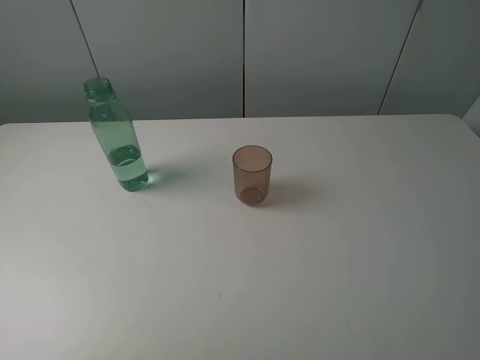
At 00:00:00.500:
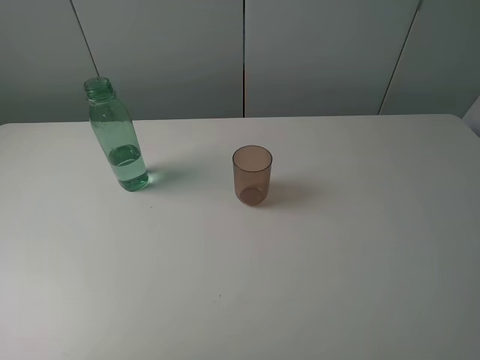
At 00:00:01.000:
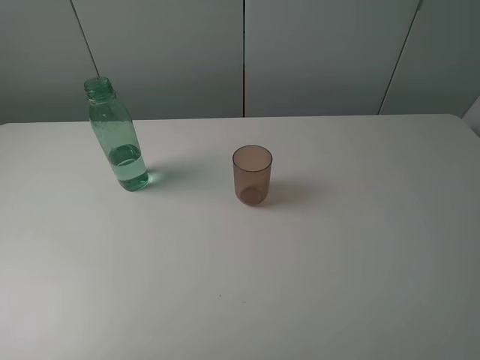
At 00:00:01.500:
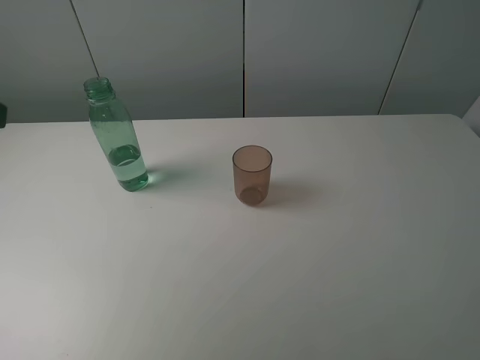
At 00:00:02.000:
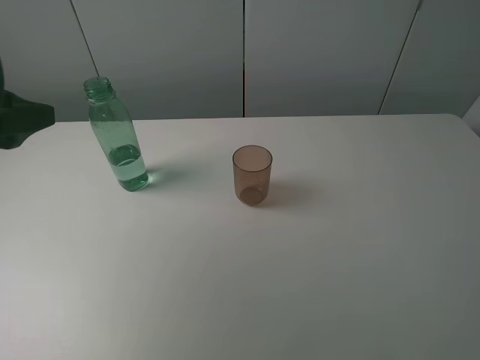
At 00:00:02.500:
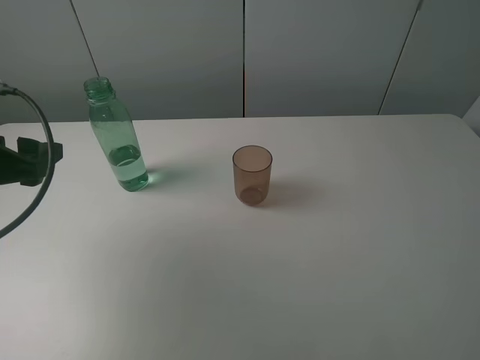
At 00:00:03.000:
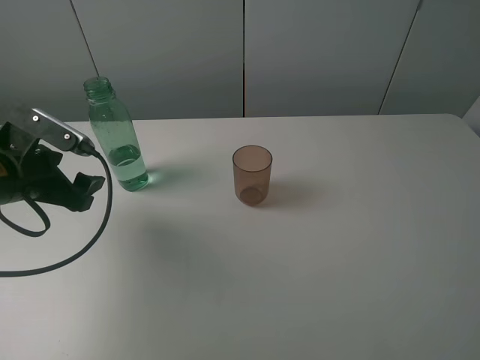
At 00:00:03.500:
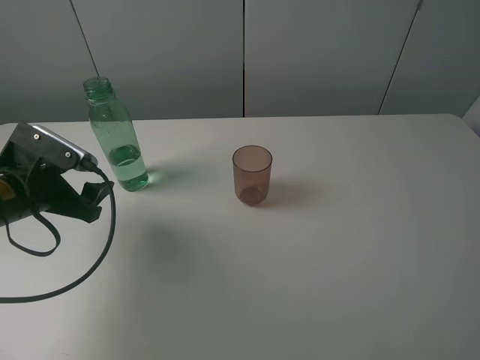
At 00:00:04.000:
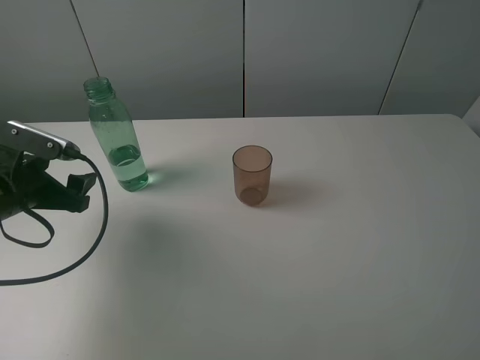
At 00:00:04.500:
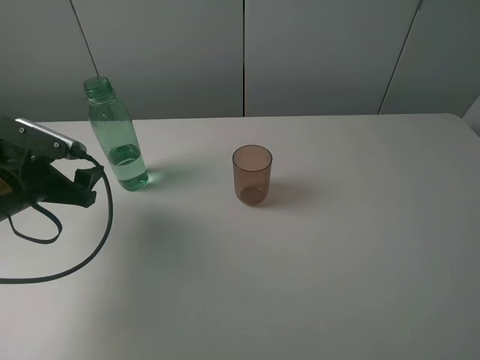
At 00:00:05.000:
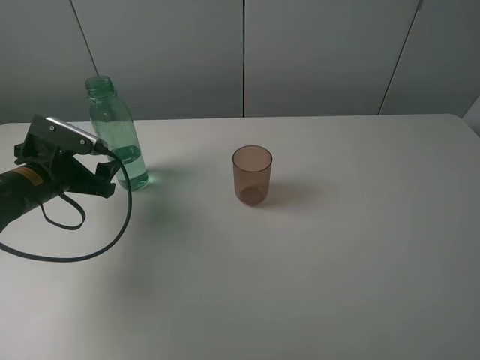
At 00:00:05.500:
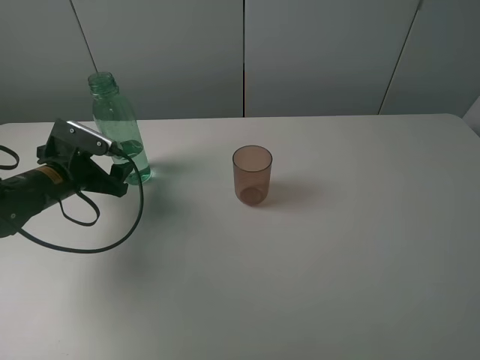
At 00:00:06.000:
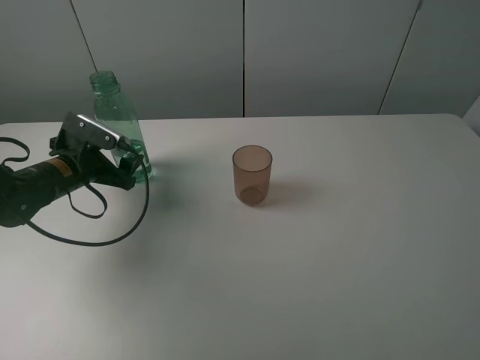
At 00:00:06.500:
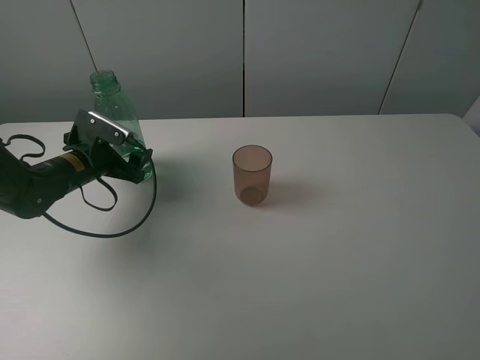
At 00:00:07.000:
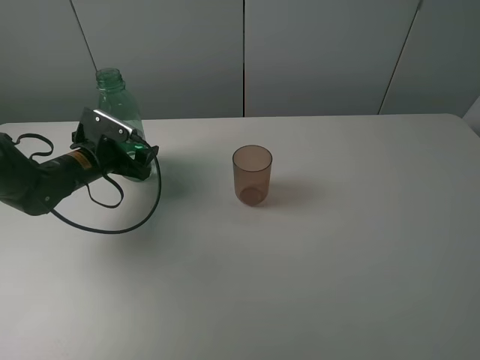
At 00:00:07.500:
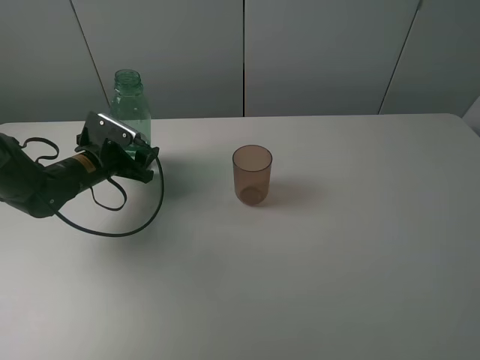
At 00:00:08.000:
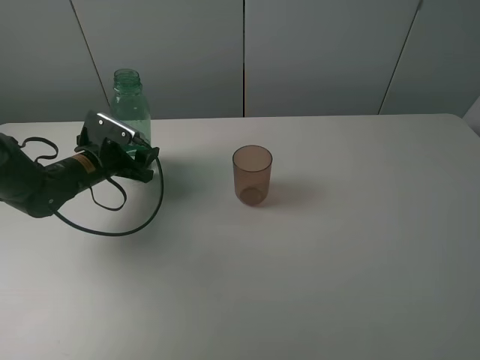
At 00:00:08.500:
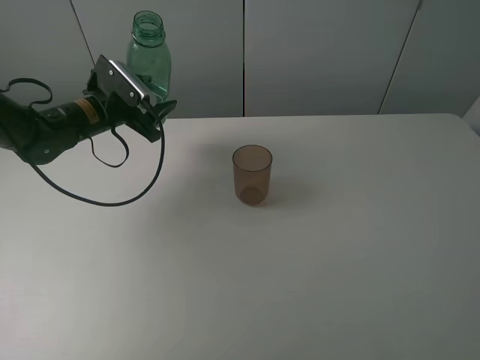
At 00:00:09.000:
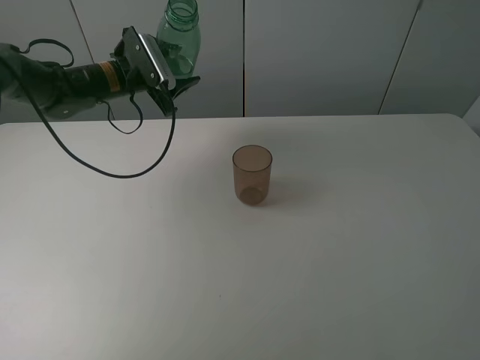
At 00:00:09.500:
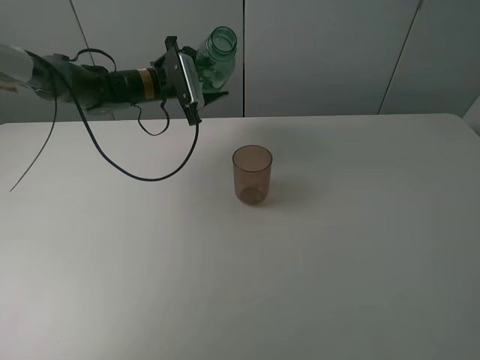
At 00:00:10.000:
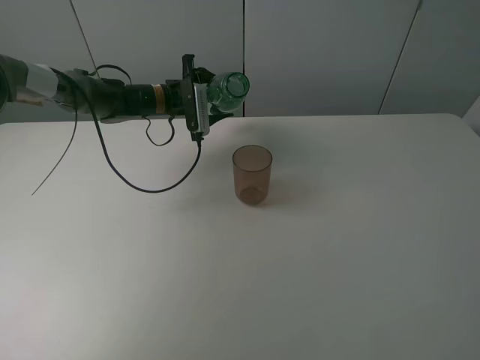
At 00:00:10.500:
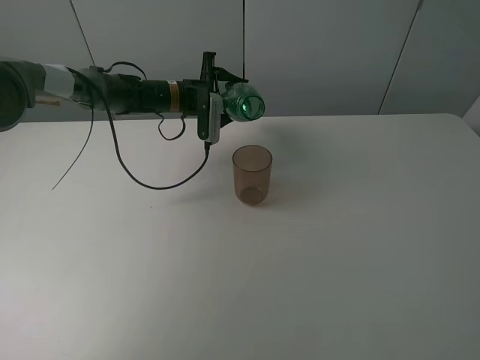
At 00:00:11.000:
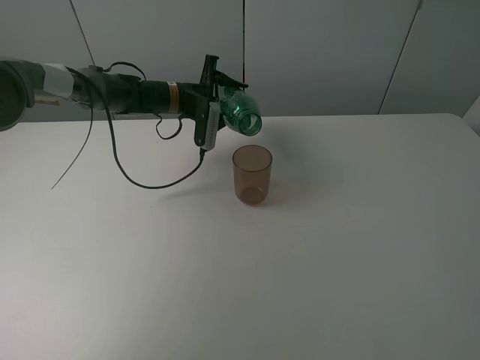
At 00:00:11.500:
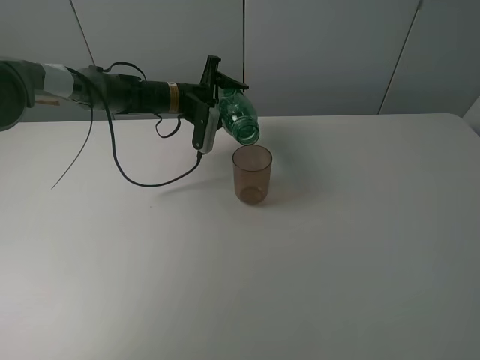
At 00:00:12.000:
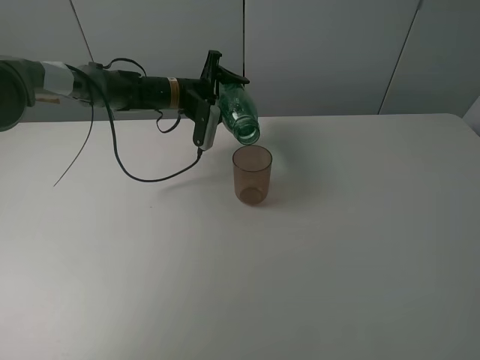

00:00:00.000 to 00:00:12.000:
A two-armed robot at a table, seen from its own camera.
Task of the whole recording: pick up the bottle filled with water and pour it into the pink cup.
Step, 00:00:00.000 to 00:00:07.500: Grasp the green bottle with the left gripper.
00:00:00.000 to 00:00:02.000: The left gripper heads forward, covering some 20 cm.
00:00:02.000 to 00:00:04.000: The left gripper goes roughly 15 cm downward.
00:00:04.000 to 00:00:06.000: The left gripper goes roughly 10 cm forward and downward.
00:00:06.000 to 00:00:08.000: The left gripper closes up.
00:00:08.000 to 00:00:10.000: The left gripper moves forward and to the right, about 20 cm.

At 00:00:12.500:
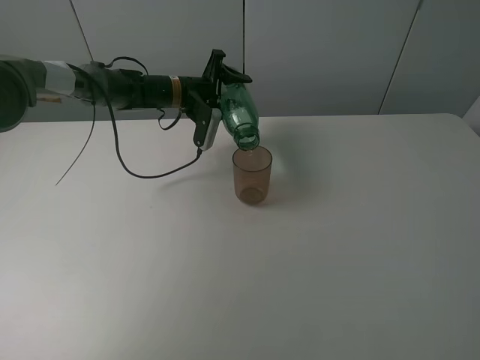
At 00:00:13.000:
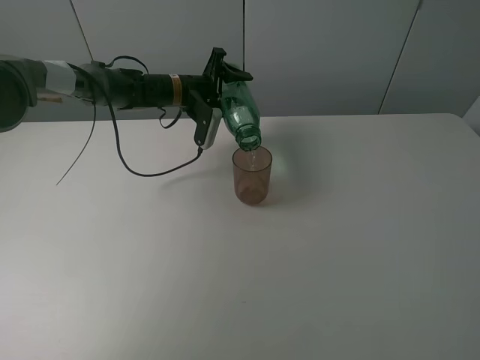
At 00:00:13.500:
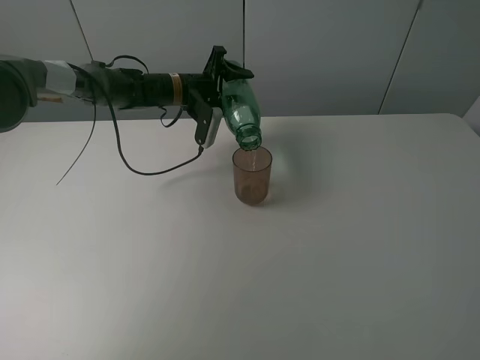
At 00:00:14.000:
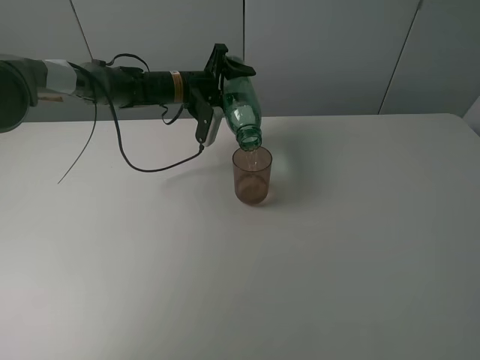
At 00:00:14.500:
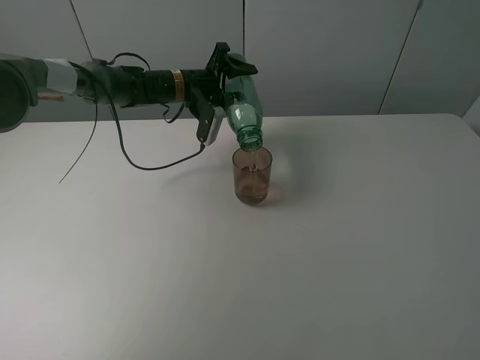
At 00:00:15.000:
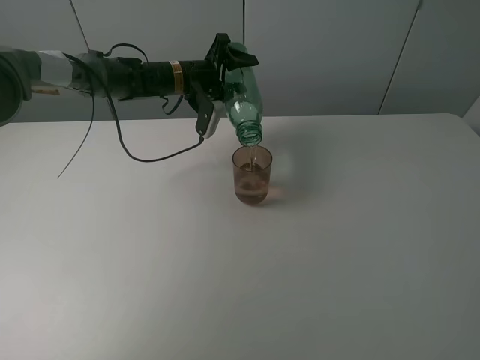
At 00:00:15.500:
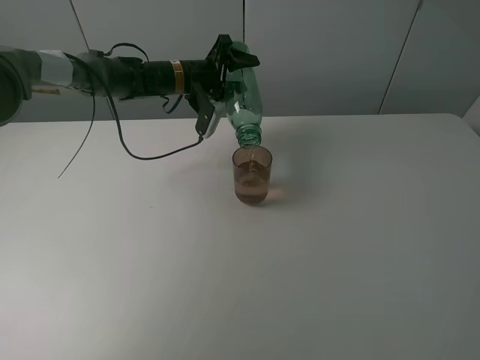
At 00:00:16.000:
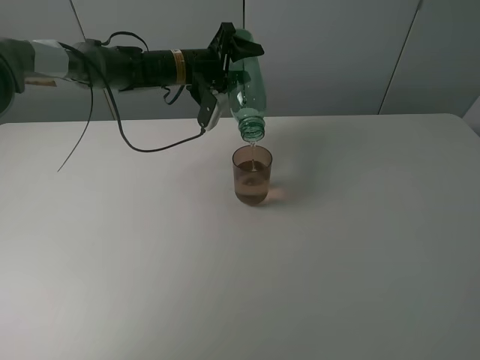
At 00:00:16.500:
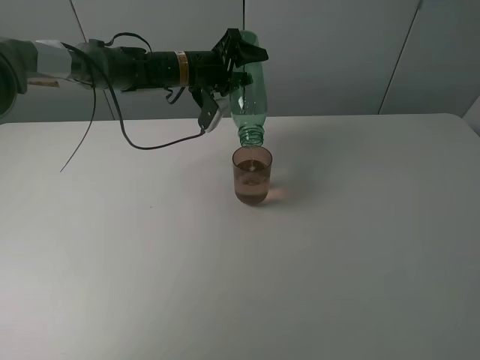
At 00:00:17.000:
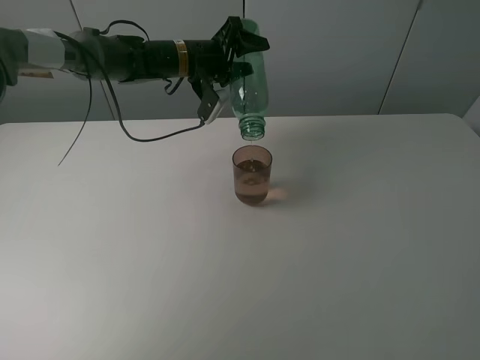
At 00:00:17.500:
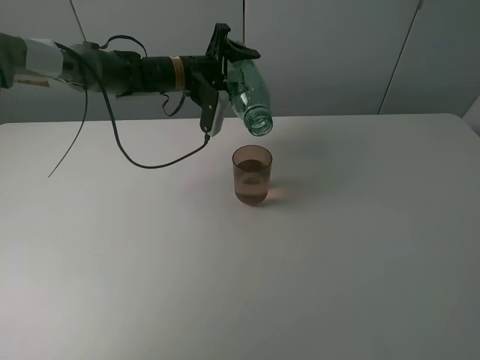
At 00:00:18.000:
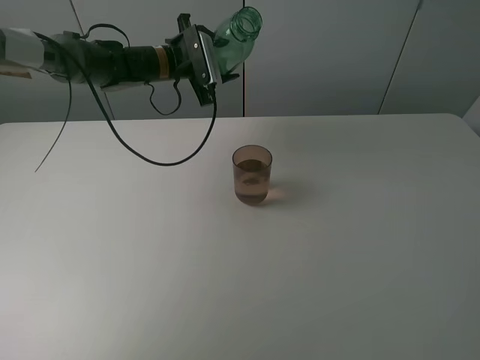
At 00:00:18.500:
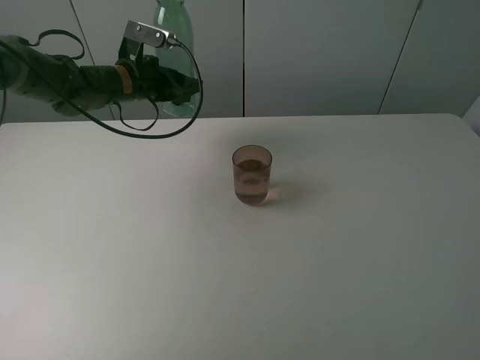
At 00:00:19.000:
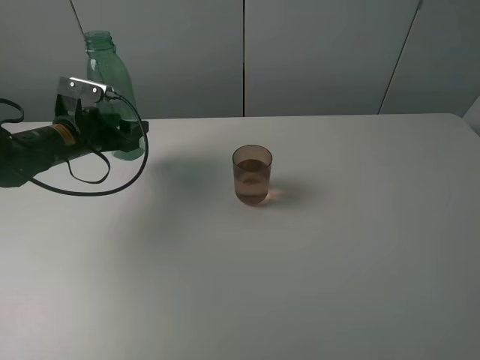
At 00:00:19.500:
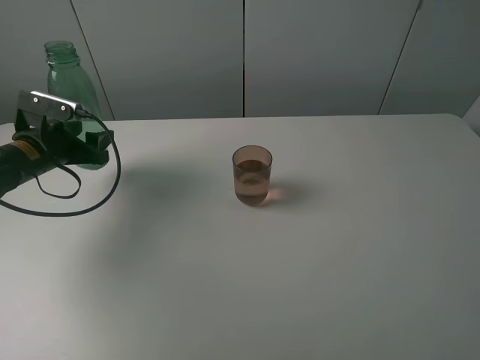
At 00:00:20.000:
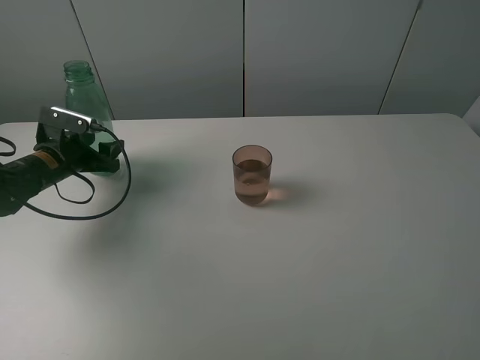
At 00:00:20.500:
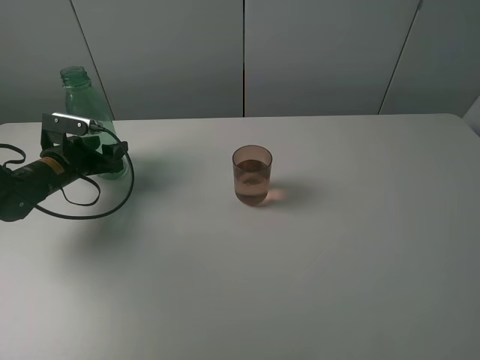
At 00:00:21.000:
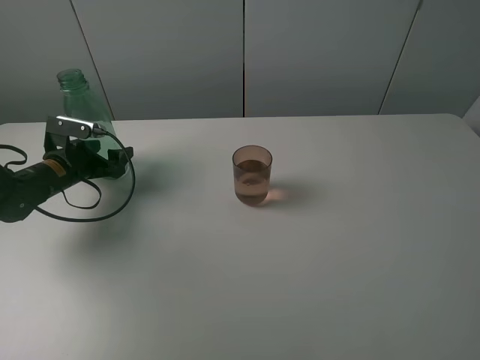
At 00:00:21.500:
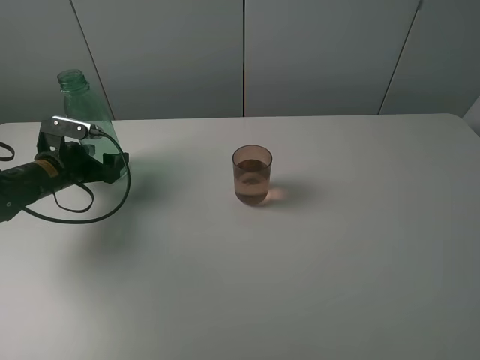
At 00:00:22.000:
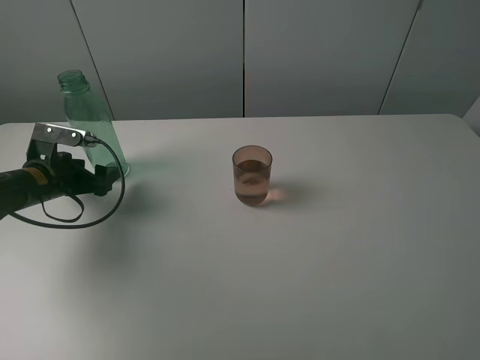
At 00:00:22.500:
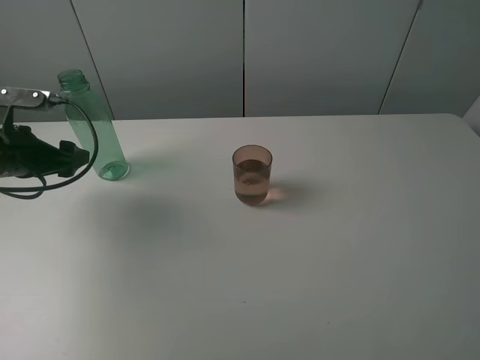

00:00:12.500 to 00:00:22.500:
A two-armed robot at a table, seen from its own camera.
Task of the whole recording: pick up the bottle filled with water and pour it into the pink cup.
Step, 00:00:12.500 to 00:00:17.500: Pour water from green bottle to pink cup with the left gripper.
Step, 00:00:18.000 to 00:00:21.500: Place the green bottle with the left gripper.
00:00:12.500 to 00:00:14.500: The grippers move only a little.
00:00:14.500 to 00:00:16.500: The grippers make only small movements.
00:00:16.500 to 00:00:18.500: The left gripper heads to the left, covering some 10 cm.
00:00:18.500 to 00:00:20.500: The left gripper is displaced to the left, downward and backward by some 20 cm.
00:00:20.500 to 00:00:22.500: The left gripper goes about 15 cm upward and backward, and opens its fingers.

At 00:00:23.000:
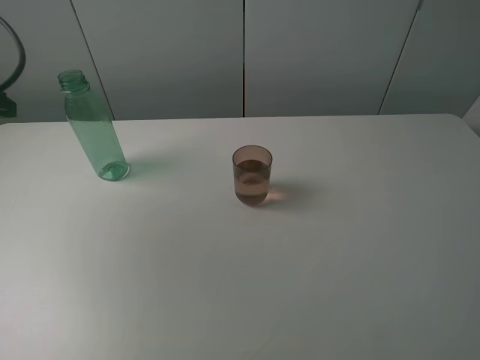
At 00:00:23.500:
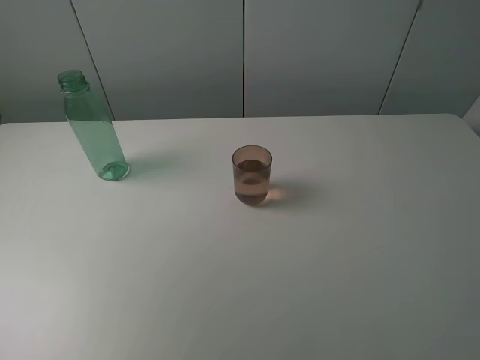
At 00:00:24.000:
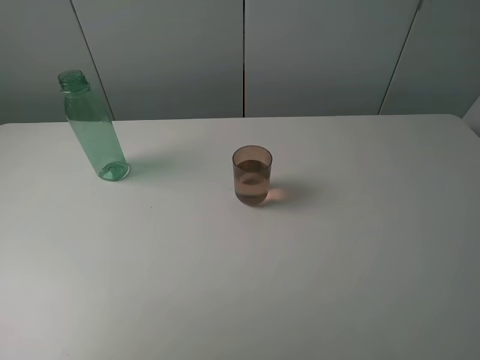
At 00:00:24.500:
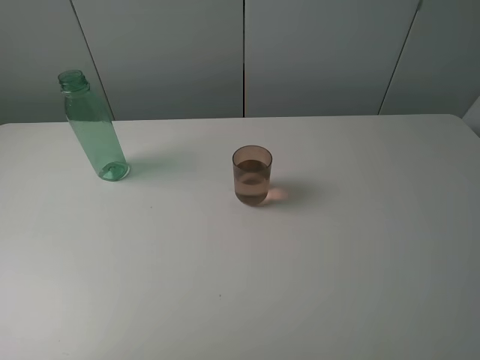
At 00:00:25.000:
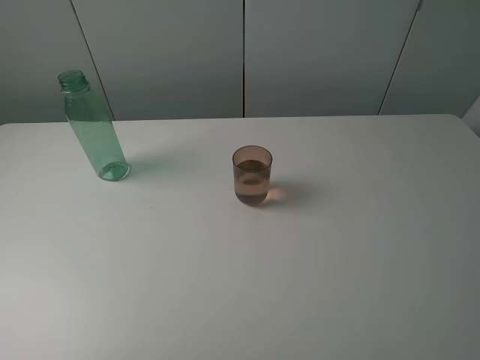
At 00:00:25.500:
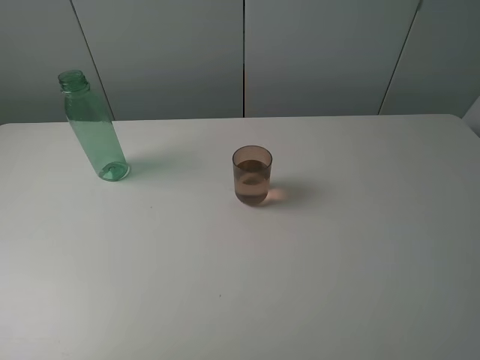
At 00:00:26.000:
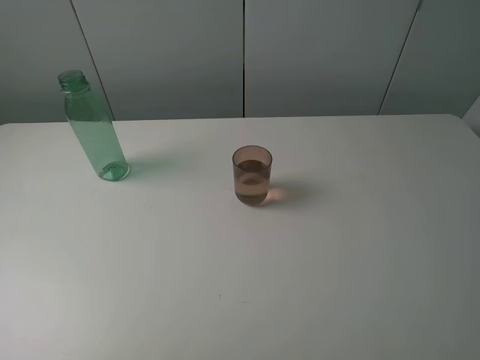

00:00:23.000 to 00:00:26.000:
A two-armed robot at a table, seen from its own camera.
Task of the whole recording: pick up the bottle filled with water and pour it into the pink cup.
00:00:23.000 to 00:00:24.500: The left gripper travels backward by roughly 25 cm.
